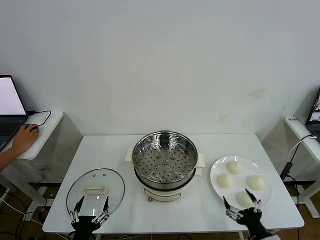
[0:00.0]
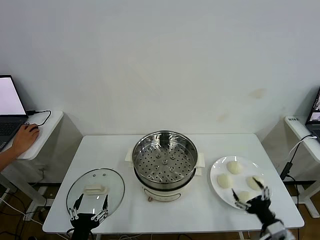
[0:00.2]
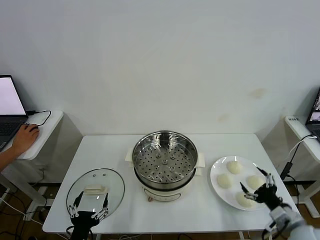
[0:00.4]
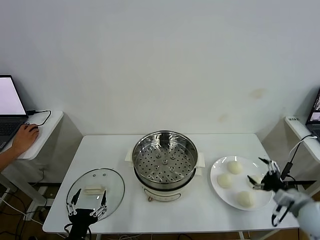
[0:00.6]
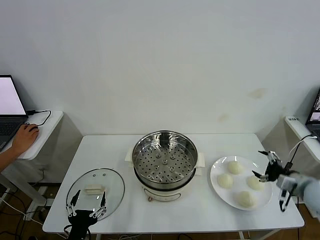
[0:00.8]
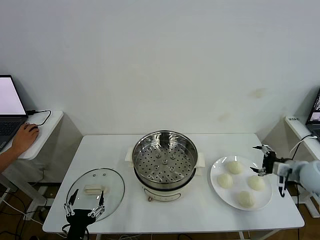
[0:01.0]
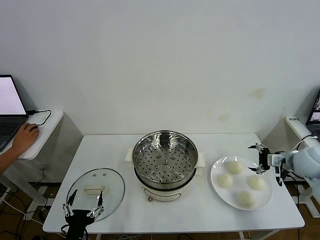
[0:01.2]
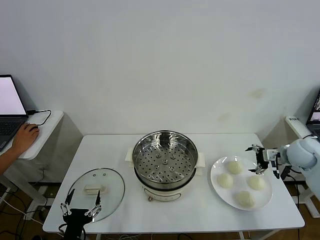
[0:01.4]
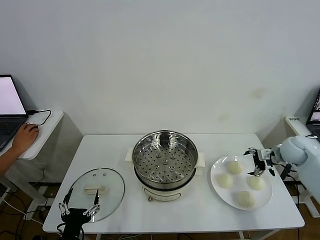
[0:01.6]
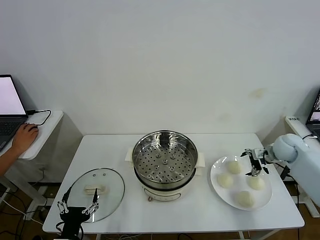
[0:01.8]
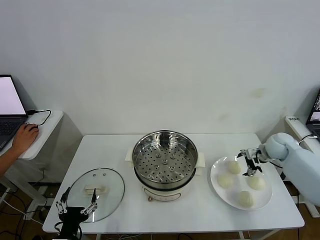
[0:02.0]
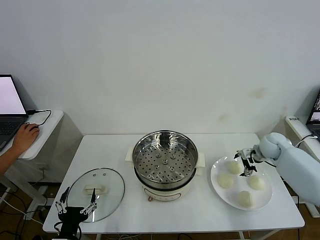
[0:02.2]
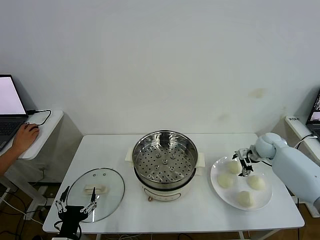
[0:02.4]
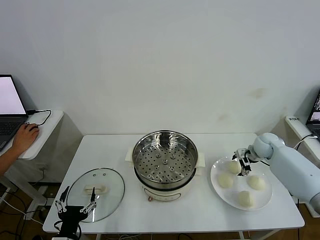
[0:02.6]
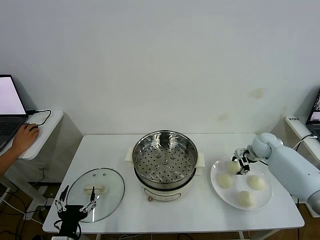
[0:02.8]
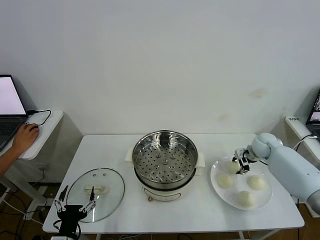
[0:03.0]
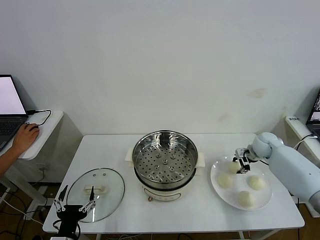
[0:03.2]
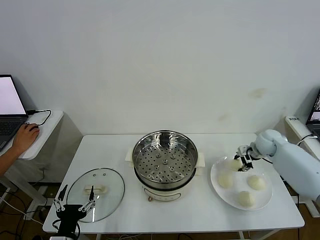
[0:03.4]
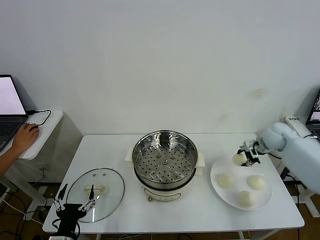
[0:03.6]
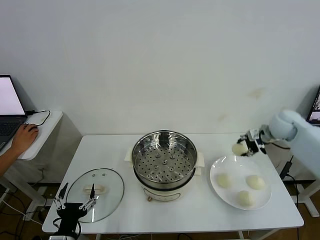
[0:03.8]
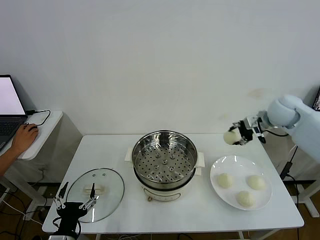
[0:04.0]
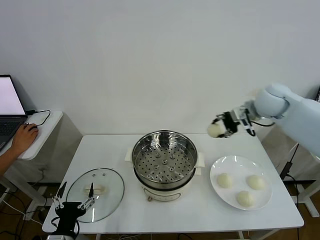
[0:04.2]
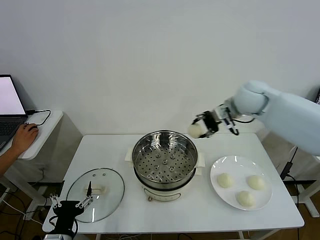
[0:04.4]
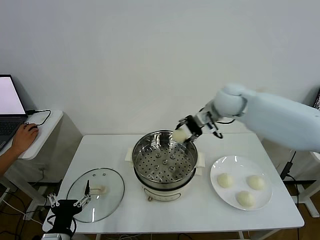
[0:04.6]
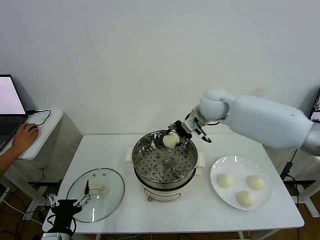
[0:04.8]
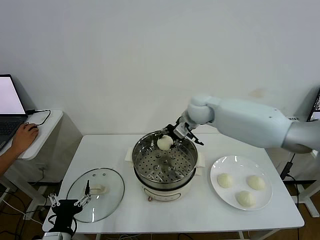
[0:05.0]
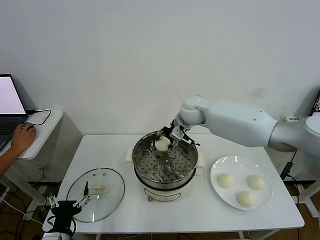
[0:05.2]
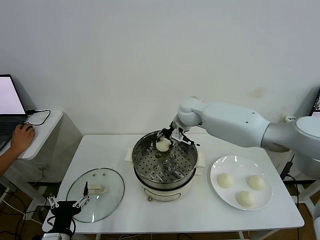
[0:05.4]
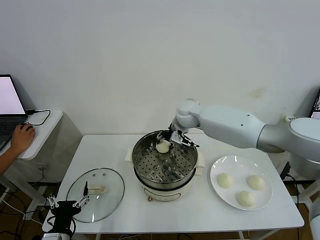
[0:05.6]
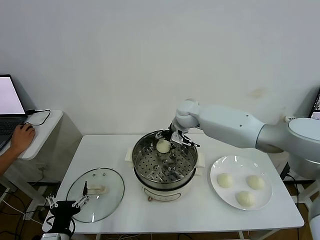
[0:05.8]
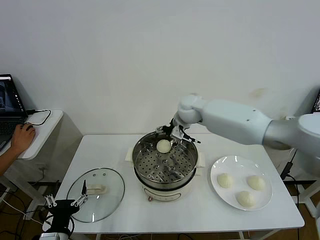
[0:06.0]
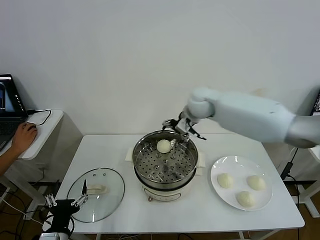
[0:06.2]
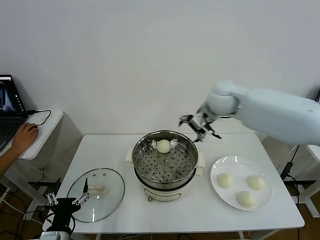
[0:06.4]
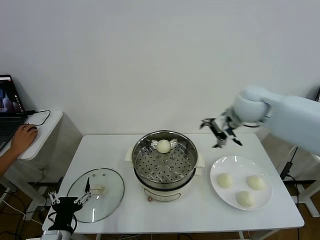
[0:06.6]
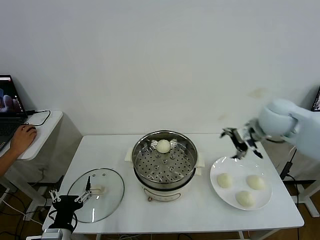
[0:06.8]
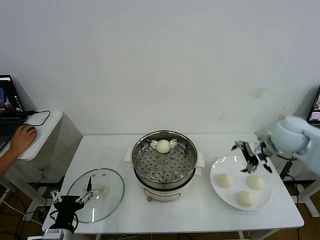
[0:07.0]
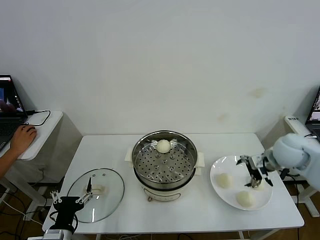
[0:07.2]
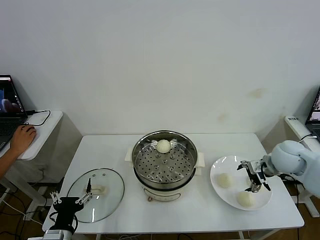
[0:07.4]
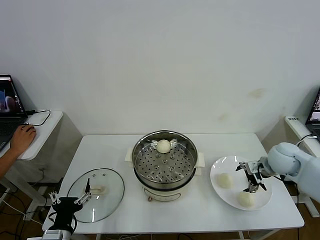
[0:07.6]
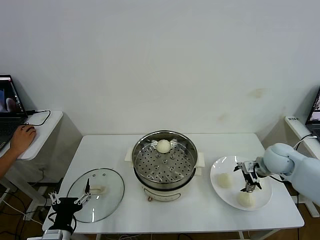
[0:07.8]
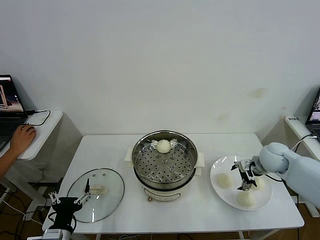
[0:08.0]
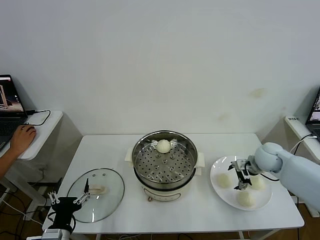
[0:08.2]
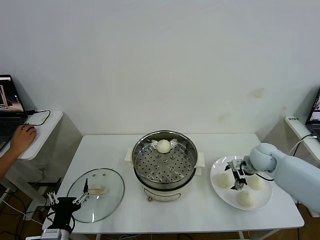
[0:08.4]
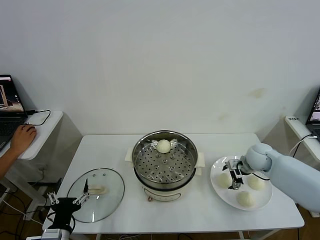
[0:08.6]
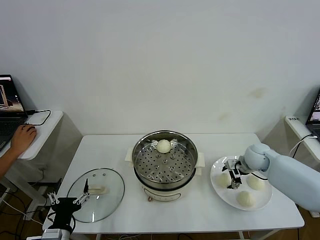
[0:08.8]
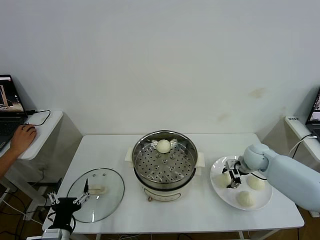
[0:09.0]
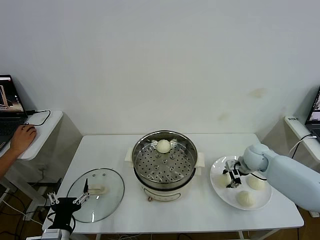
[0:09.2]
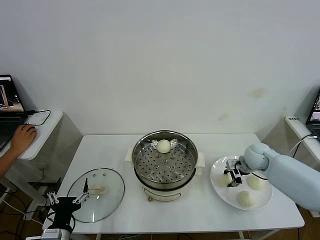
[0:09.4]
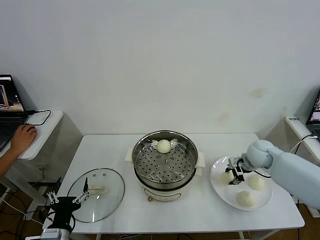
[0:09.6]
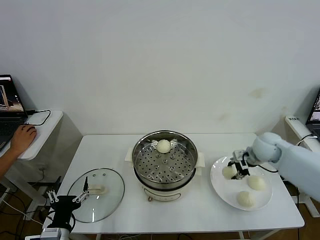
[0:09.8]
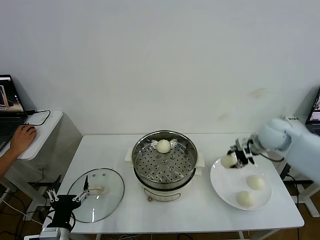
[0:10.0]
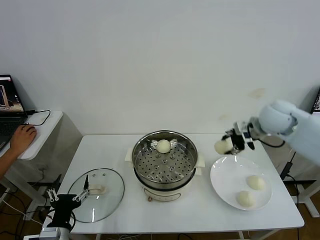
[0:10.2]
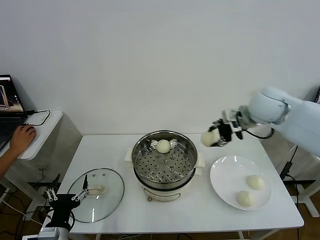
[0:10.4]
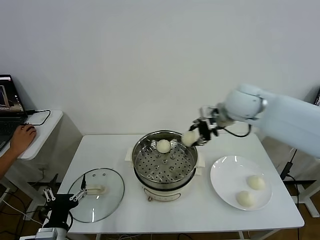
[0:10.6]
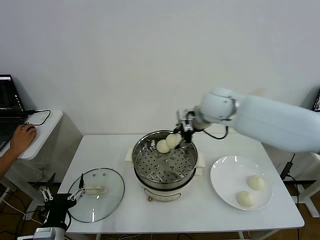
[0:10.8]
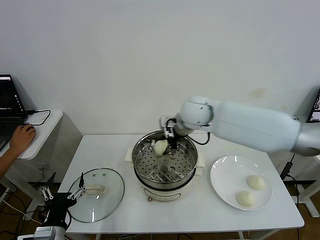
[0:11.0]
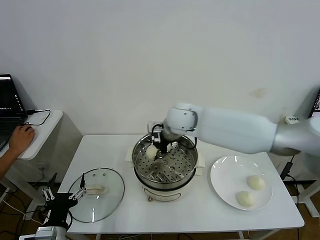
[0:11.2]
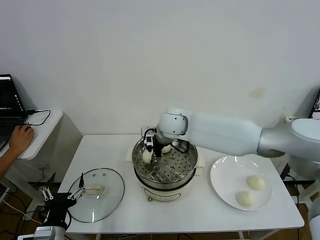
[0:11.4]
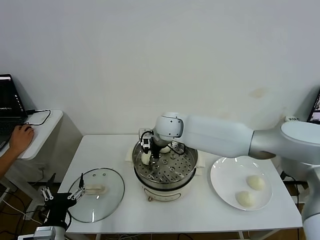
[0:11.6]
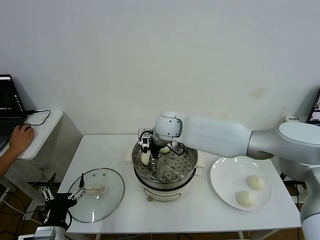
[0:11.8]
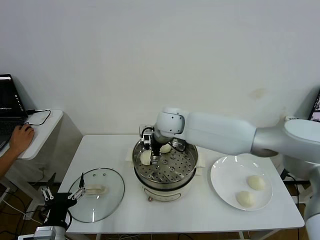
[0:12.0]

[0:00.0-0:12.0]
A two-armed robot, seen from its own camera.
Step, 0:00.0 to 0:03.0: Grasp the baozi in the plate with right gripper.
Step, 0:03.2 to 0:06.0: Place the baozi on the steamer with right gripper.
Step, 0:06.2 to 0:09.2: Grasp the baozi in the plate with right gripper.
Step, 0:09.4 to 0:12.0: Place the baozi on the steamer with right gripper.
0:01.6 to 0:03.0: The right gripper travels forward, downward and to the left by roughly 10 cm, and closes its fingers.
0:03.0 to 0:04.4: The right gripper moves upward and to the left, about 30 cm.
0:04.4 to 0:06.0: The right gripper goes about 15 cm to the left and downward, and opens its fingers.
0:06.0 to 0:07.6: The right gripper moves to the right and backward, roughly 35 cm.
0:07.6 to 0:09.0: The right gripper travels downward and forward by about 10 cm, and closes up.
0:09.0 to 0:10.4: The right gripper shifts some 25 cm upward, and closes its fingers.
0:10.4 to 0:12.0: The right gripper is displaced to the left by roughly 25 cm, and opens.

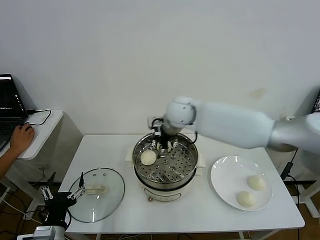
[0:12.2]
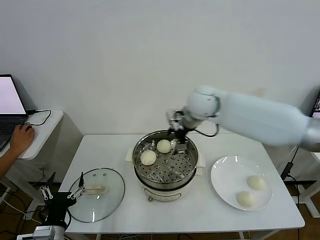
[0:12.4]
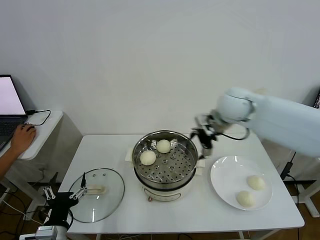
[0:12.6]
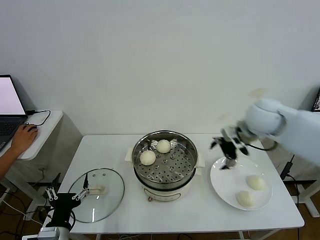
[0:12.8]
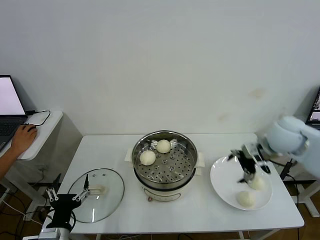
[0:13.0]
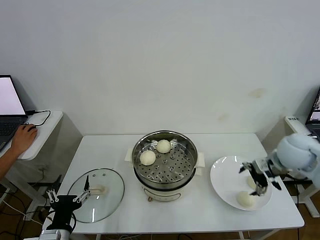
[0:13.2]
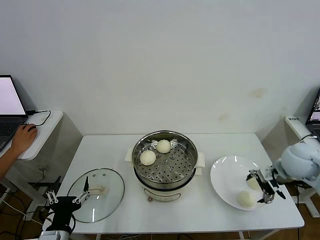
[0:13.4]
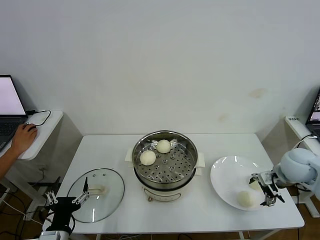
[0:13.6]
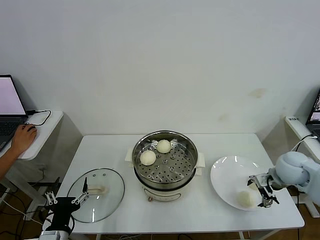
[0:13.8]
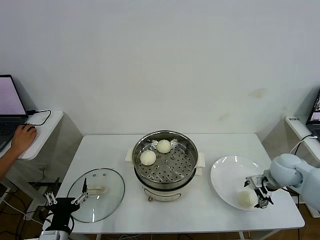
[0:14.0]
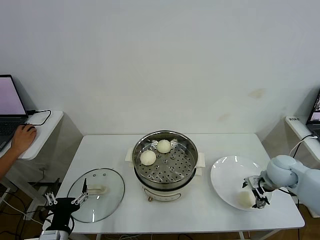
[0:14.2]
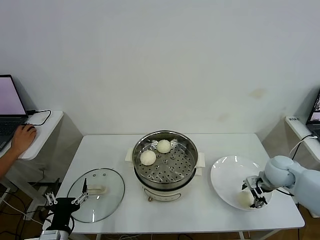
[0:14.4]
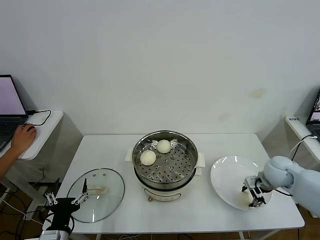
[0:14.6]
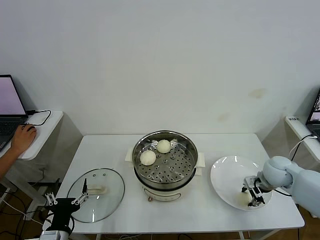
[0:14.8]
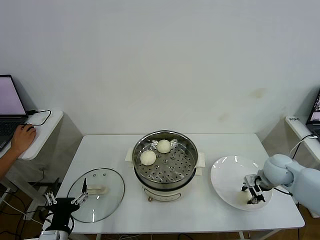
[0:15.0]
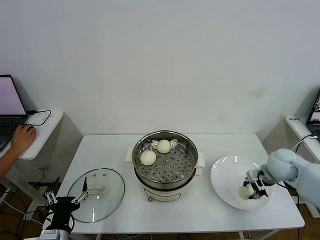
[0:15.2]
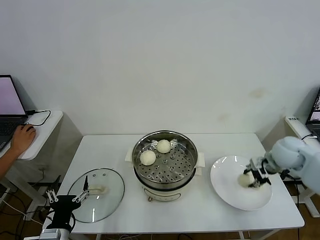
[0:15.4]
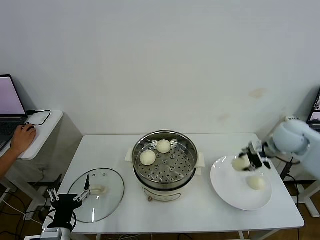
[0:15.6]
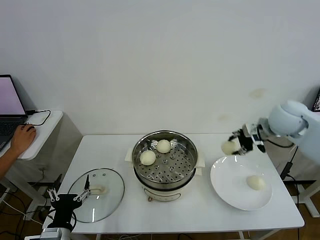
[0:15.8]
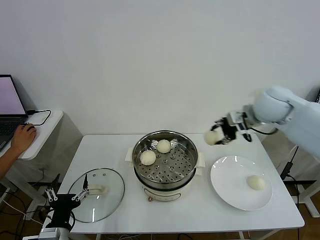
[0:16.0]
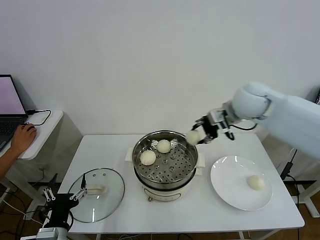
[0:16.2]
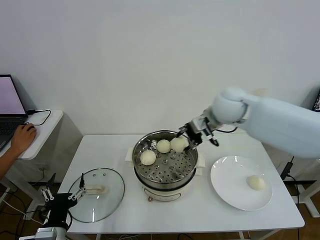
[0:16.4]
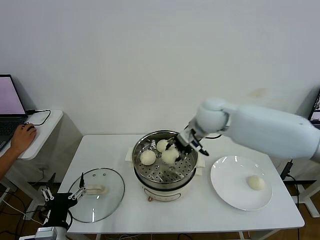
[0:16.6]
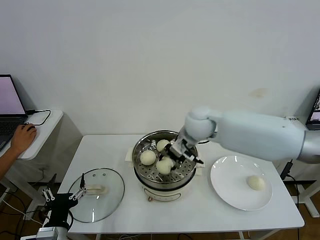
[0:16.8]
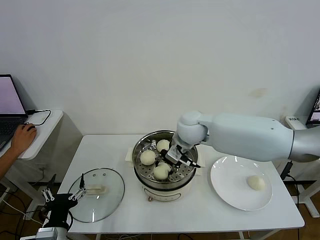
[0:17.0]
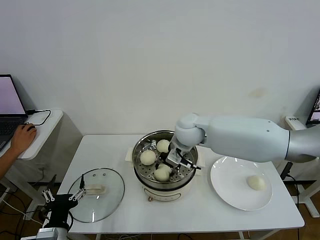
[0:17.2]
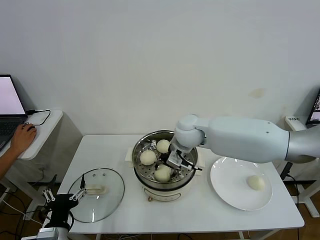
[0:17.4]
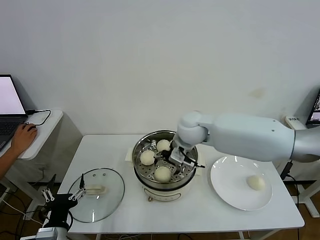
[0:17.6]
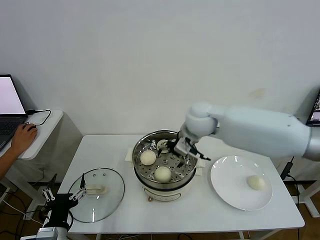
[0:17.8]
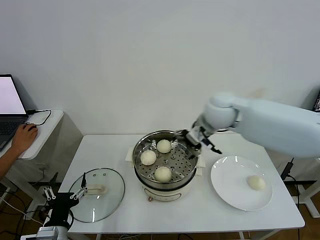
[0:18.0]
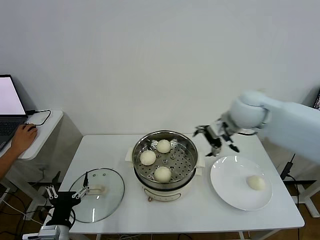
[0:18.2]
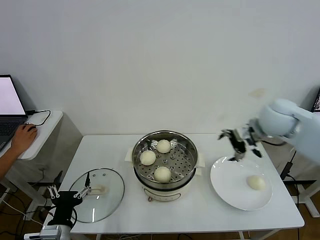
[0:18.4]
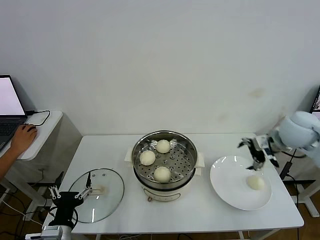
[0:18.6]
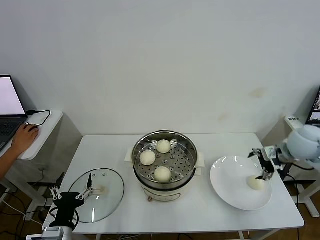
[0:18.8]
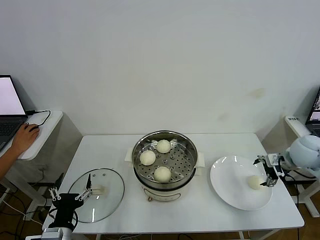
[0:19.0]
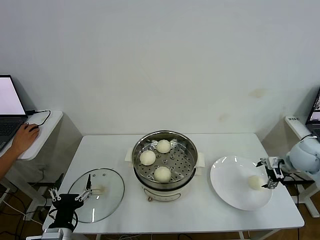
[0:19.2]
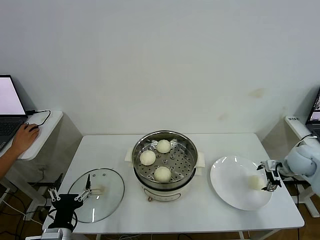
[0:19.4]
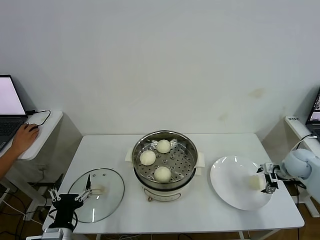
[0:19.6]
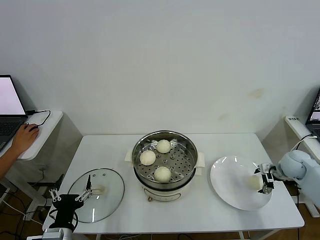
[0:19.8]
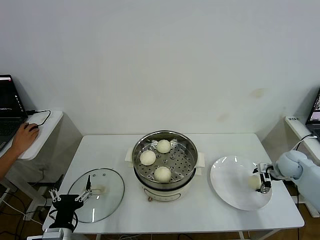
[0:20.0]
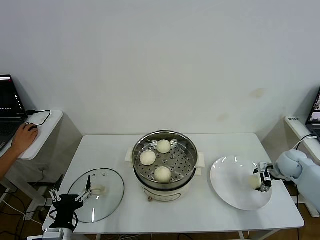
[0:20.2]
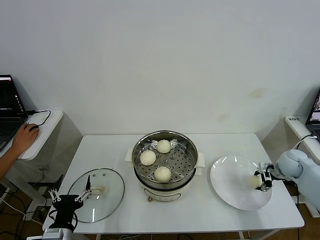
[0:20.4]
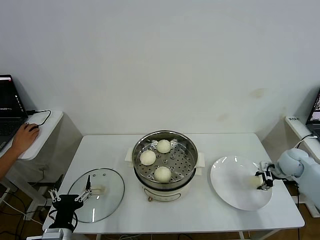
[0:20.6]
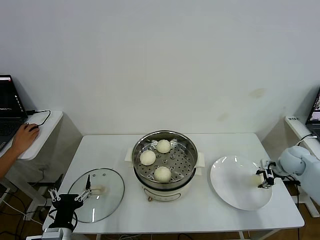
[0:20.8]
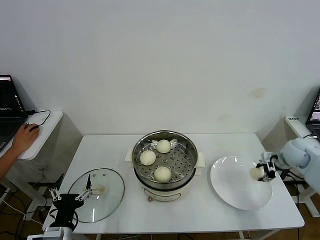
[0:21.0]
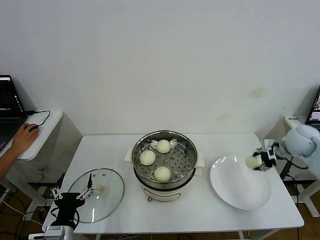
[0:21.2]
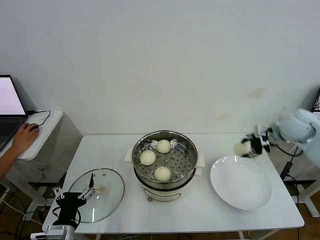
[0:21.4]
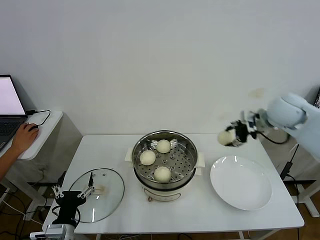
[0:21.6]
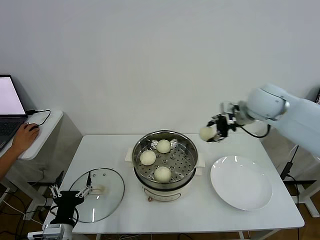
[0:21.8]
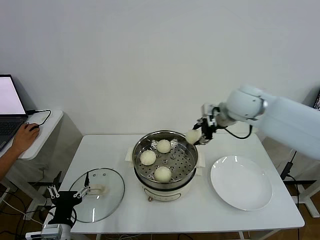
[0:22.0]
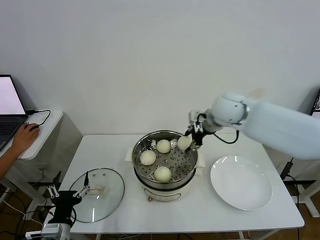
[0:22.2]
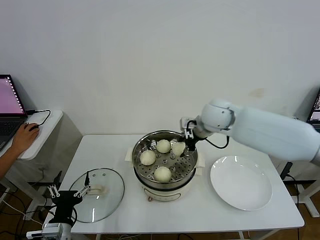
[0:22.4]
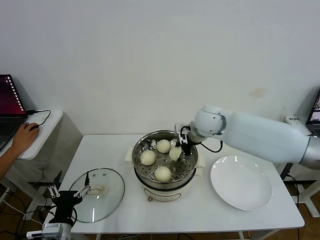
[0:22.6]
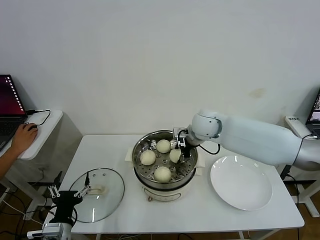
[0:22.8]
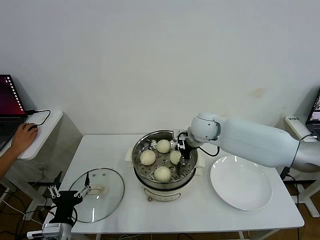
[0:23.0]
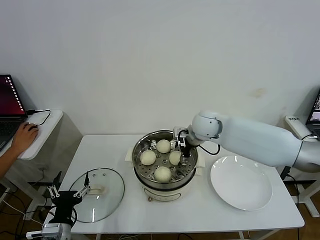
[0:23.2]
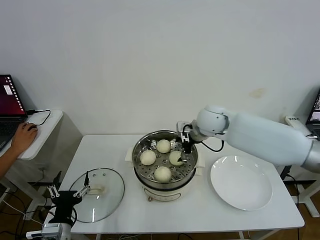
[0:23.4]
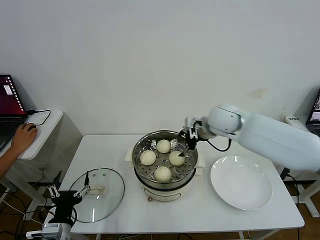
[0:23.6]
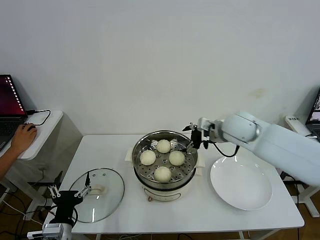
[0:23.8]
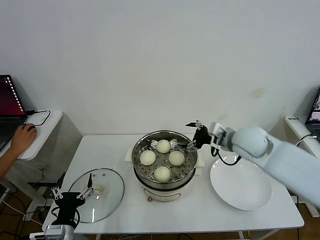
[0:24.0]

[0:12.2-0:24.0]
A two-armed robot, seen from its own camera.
Step, 0:12.2 to 0:14.6: Grasp the baozi in the plate with right gripper.
Step, 0:14.8 to 0:17.6: Place the baozi on the steamer with right gripper.
Step, 0:17.8 to 0:20.4: Grasp the baozi in the plate with right gripper.
Step, 0:20.8 to 0:23.2: Place the baozi on the steamer with right gripper.
0:12.2 to 0:13.6: The right gripper goes some 35 cm to the right.
0:13.6 to 0:15.2: The right gripper changes place by some 5 cm, and closes its fingers.
0:15.2 to 0:16.6: The right gripper moves to the left and upward, roughly 30 cm.
0:16.6 to 0:18.2: The right gripper is displaced to the right by some 10 cm, and opens its fingers.
0:18.2 to 0:19.6: The right gripper travels to the right and downward by roughly 30 cm.
0:19.6 to 0:21.0: The right gripper closes.
0:21.0 to 0:22.6: The right gripper shifts approximately 30 cm to the left.
0:22.6 to 0:24.0: The right gripper is displaced to the right and backward by some 10 cm, and opens up.
